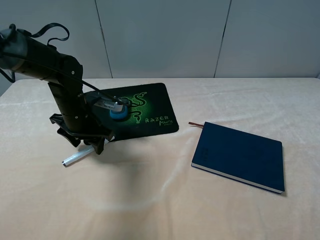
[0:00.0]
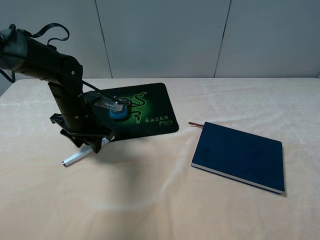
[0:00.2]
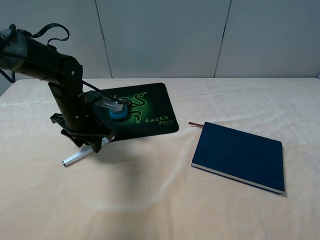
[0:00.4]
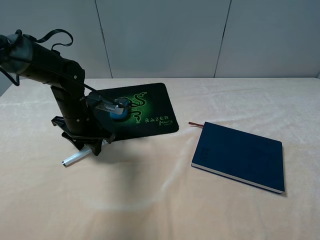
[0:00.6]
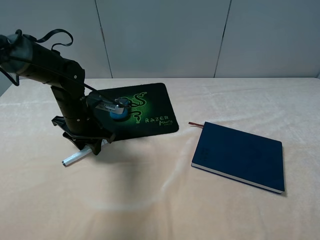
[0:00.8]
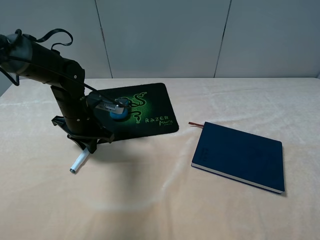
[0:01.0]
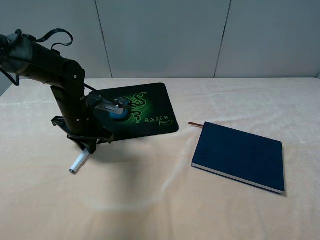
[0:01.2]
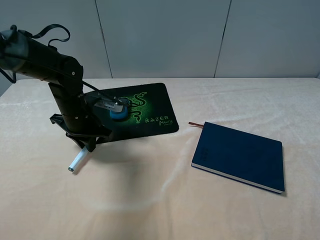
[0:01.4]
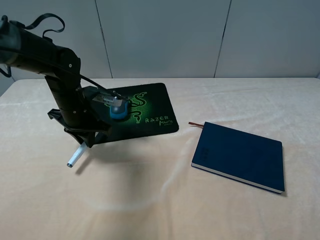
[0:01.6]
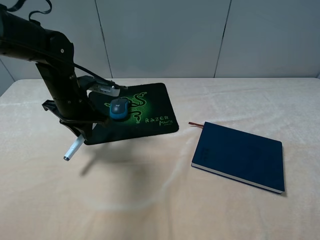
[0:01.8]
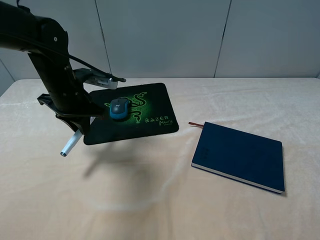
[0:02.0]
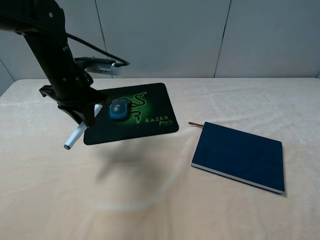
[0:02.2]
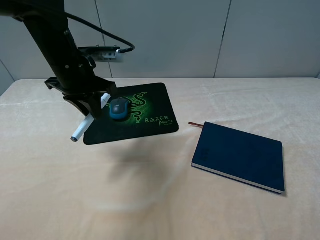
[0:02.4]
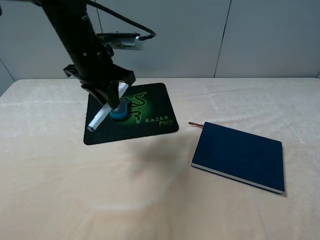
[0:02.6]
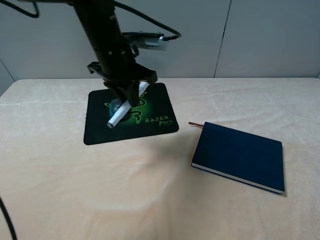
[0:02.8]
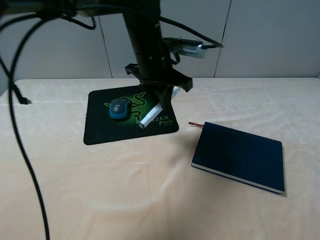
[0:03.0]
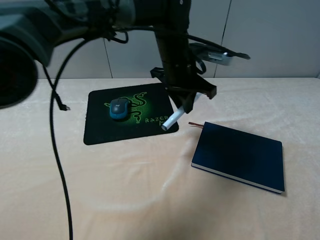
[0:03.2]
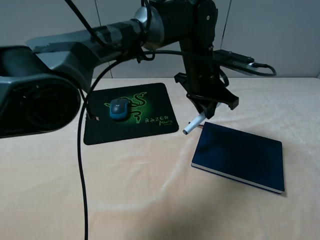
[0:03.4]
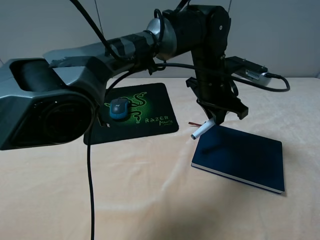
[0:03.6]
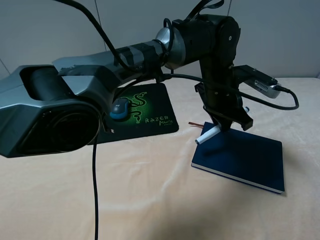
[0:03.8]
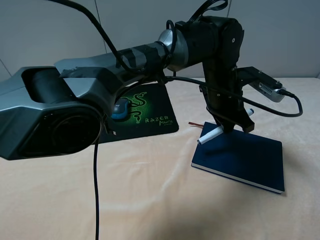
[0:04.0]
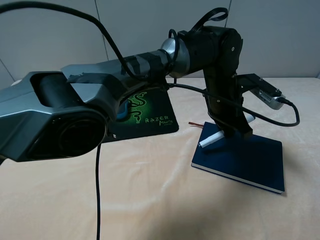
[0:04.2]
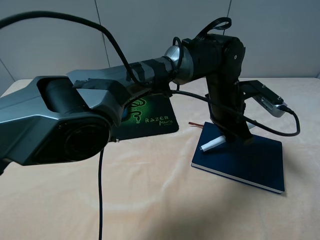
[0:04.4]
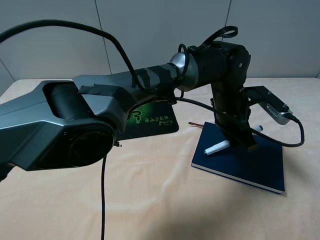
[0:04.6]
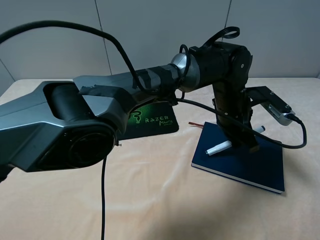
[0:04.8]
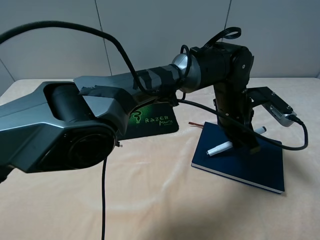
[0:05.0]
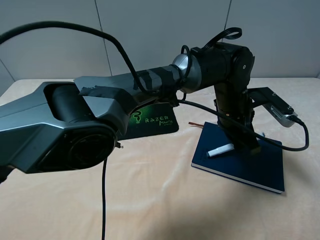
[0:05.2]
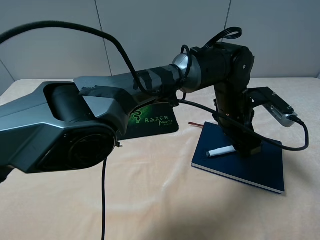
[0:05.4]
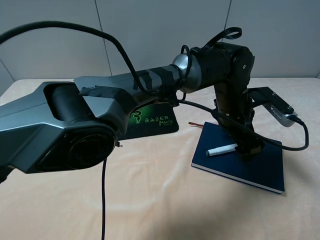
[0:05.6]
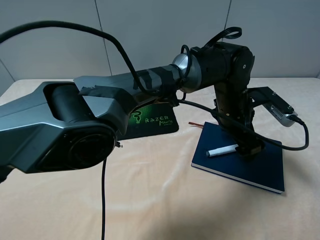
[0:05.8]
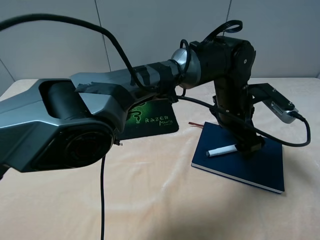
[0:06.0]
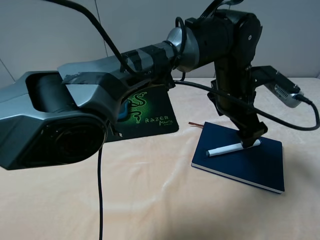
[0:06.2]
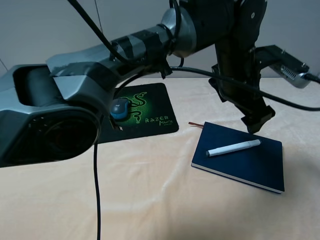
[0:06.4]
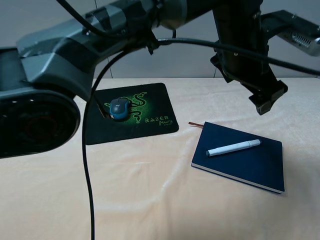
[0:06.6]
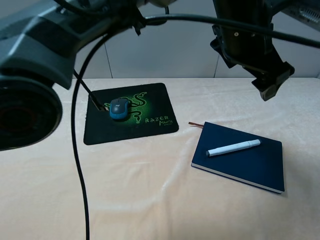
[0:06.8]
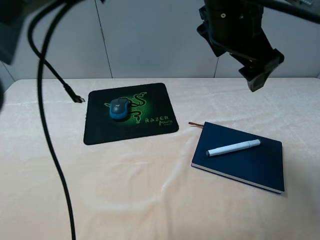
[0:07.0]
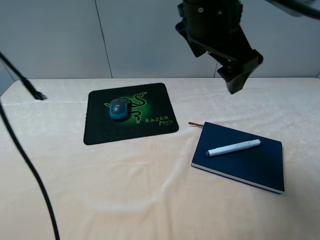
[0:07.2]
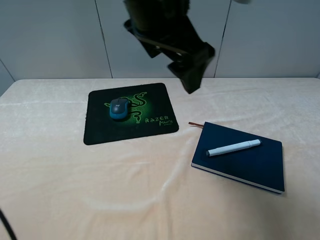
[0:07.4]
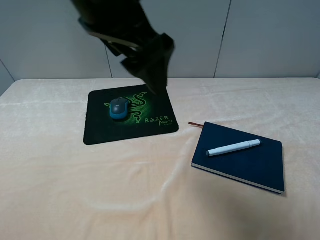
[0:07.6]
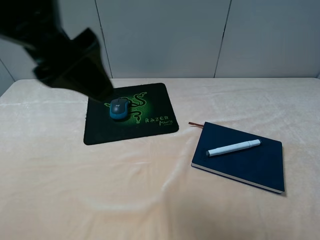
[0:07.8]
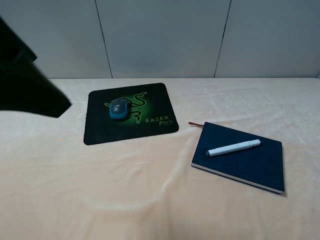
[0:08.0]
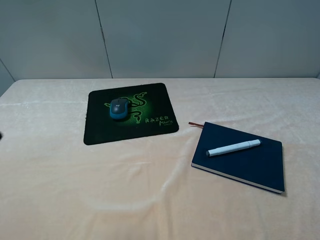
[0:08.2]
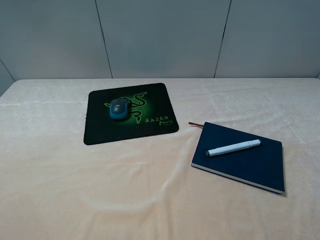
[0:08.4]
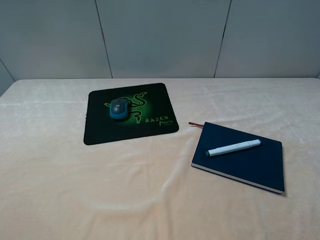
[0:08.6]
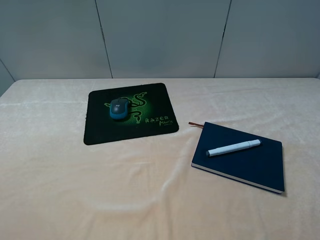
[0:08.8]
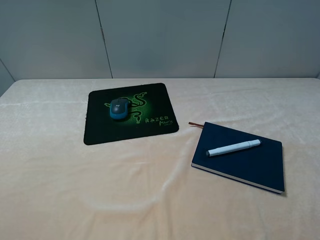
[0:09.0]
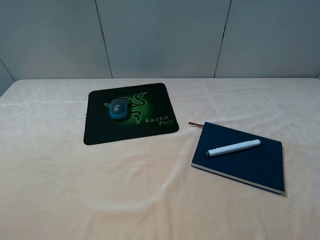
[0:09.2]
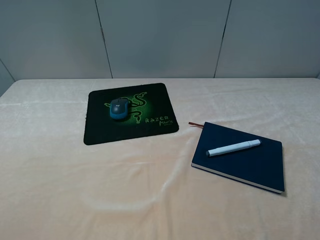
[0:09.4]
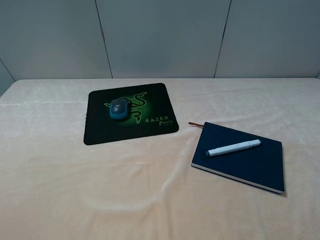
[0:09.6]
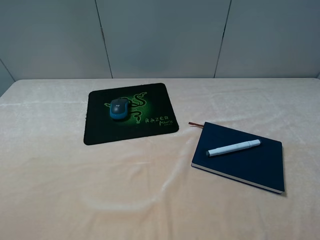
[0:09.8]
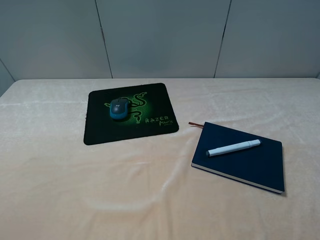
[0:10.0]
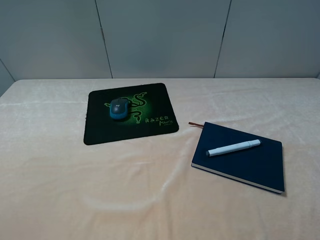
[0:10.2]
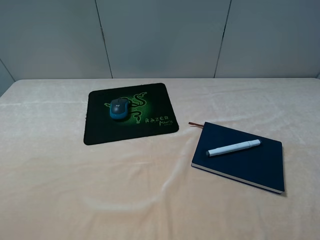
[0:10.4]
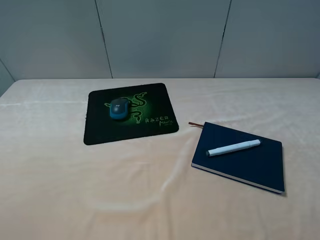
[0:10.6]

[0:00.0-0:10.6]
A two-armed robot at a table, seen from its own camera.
Step, 0:01.4 to 0:05.6: Place the marker on the notebook with the left gripper.
0:00.0 to 0:01.6: The left gripper closes its fingers.
0:01.6 to 0:03.0: The left gripper is displaced to the right and upward by roughly 20 cm.
0:03.0 to 0:04.6: The left gripper heads to the right and downward, covering roughly 15 cm.
0:04.6 to 0:06.0: The left gripper opens up.
0:06.0 to 0:07.6: The left gripper is displaced upward, to the left and backward by roughly 30 cm.
0:07.6 to 0:09.0: The left gripper goes approximately 30 cm to the left and backward.
